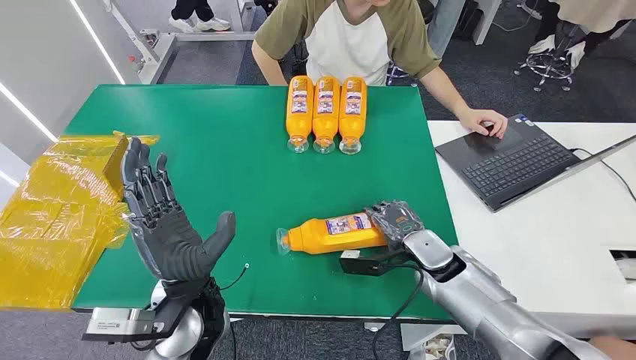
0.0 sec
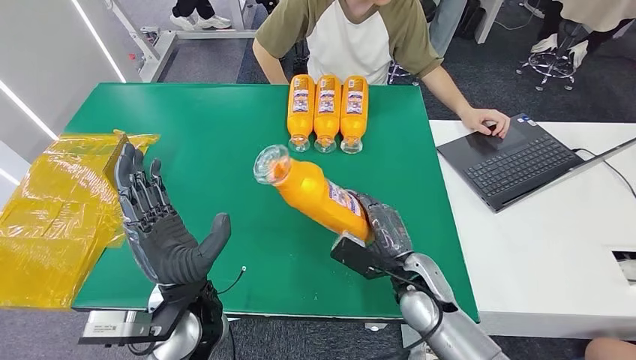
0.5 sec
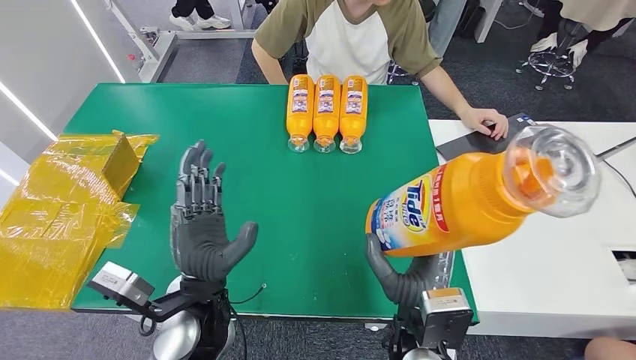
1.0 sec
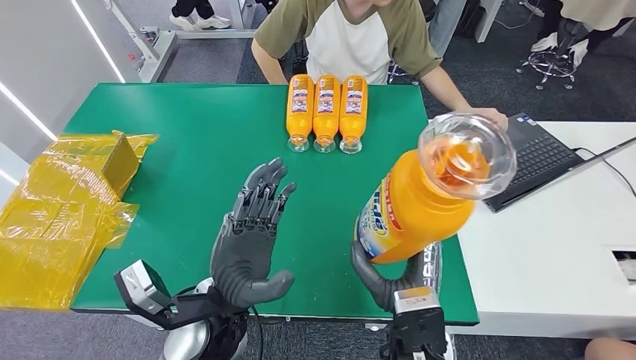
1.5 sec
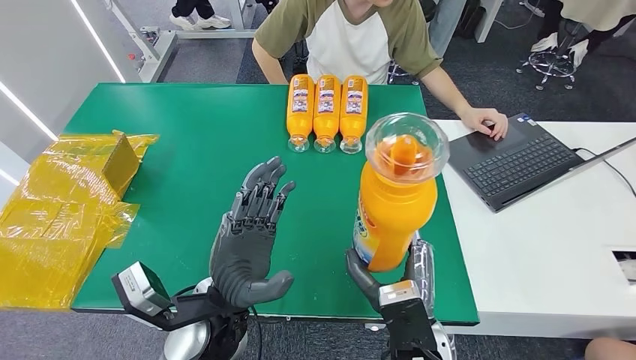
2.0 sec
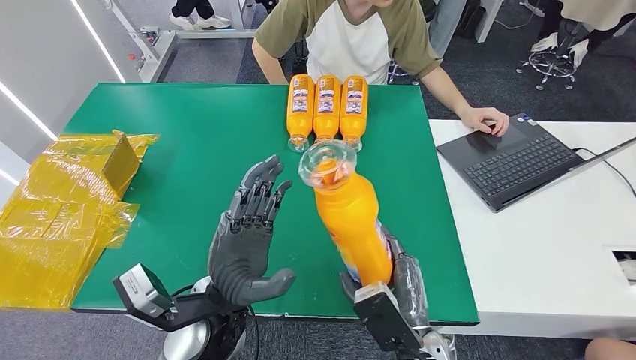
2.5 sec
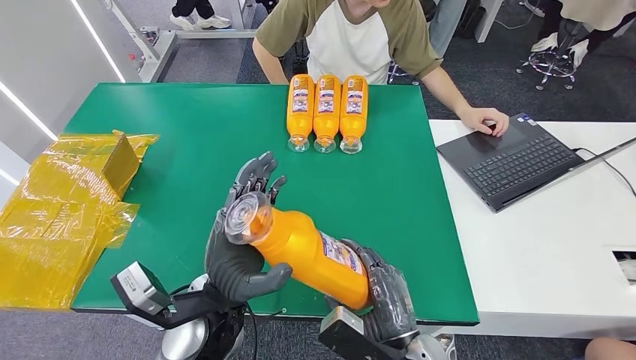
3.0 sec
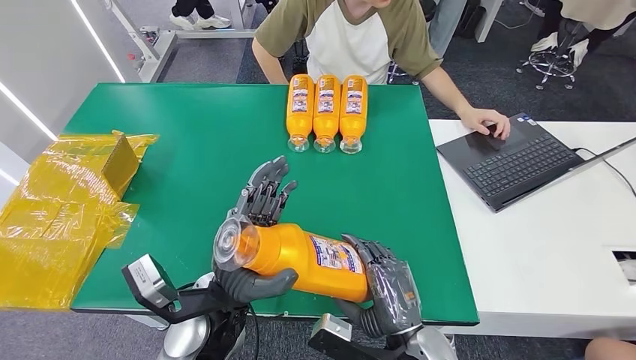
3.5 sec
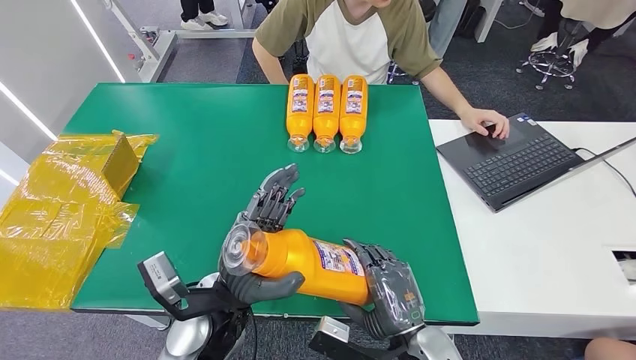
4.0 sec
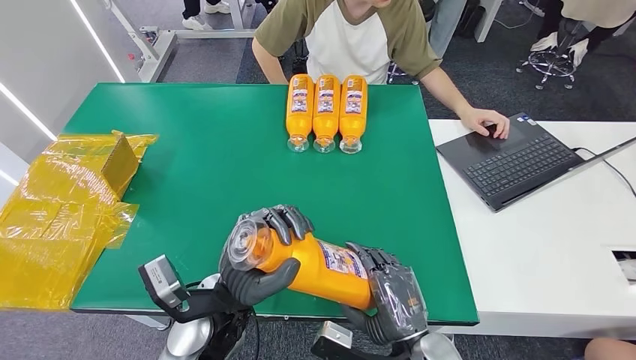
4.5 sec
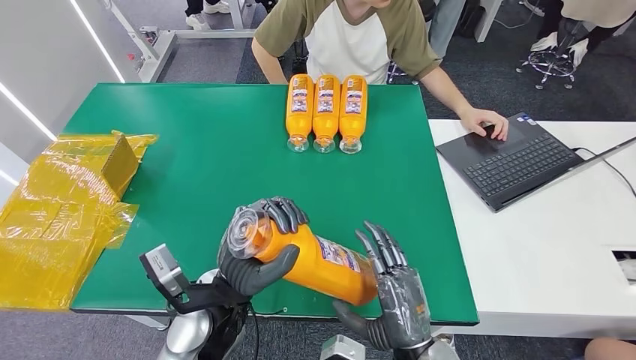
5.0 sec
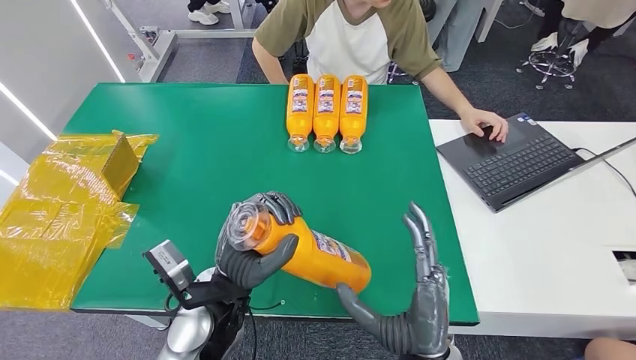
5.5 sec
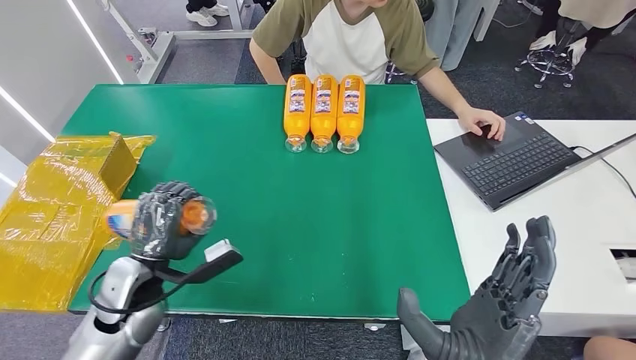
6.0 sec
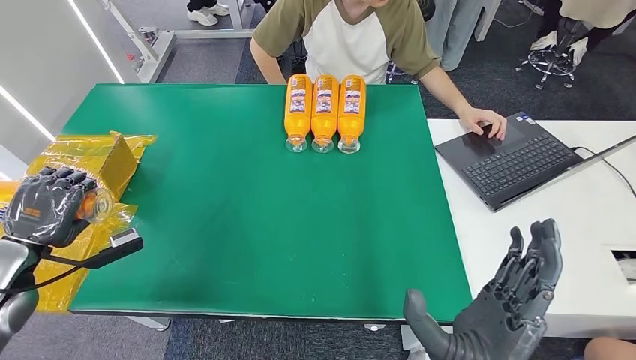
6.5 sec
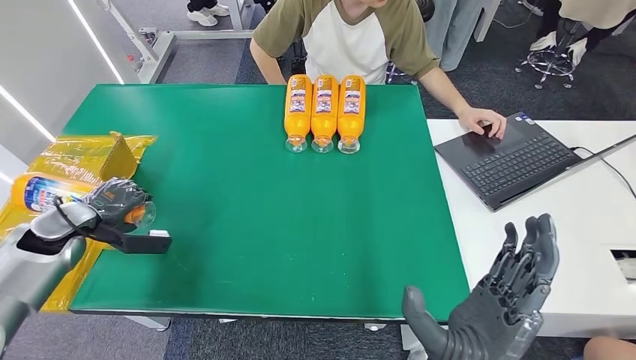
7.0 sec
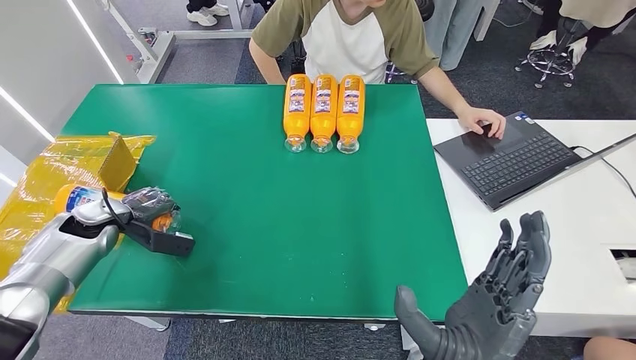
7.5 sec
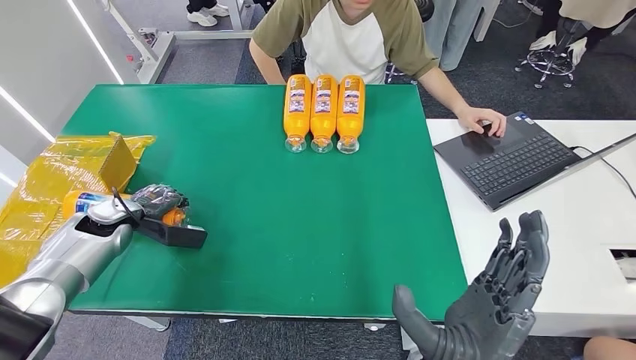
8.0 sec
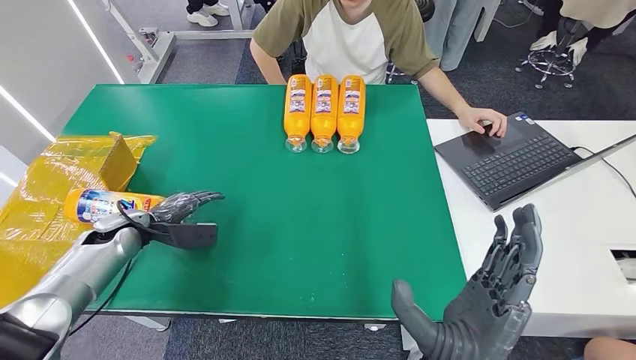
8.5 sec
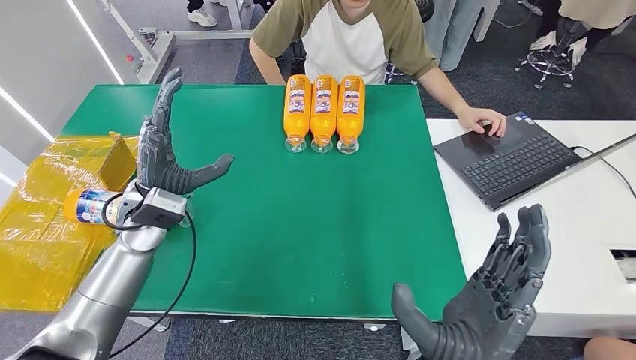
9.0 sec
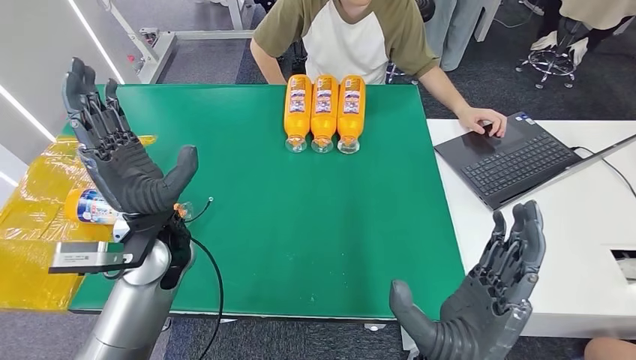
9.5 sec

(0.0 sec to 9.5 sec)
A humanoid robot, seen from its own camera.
Step, 0.0 sec - 2.5 sec: Pick up the bottle from the table.
Step, 3.0 sec - 9.5 sec: Turn the bottle to the front side.
7.5 sec - 9.5 sec: The left hand moves to the right and upward, approximately 25 cm.

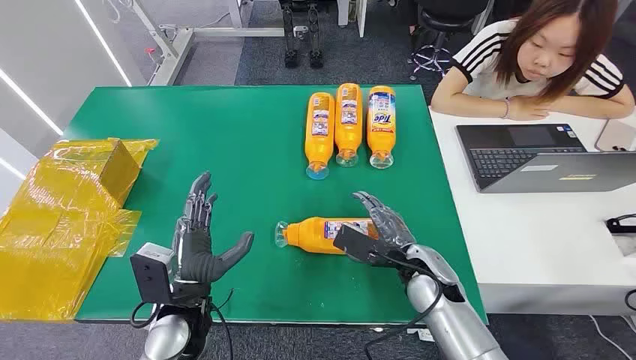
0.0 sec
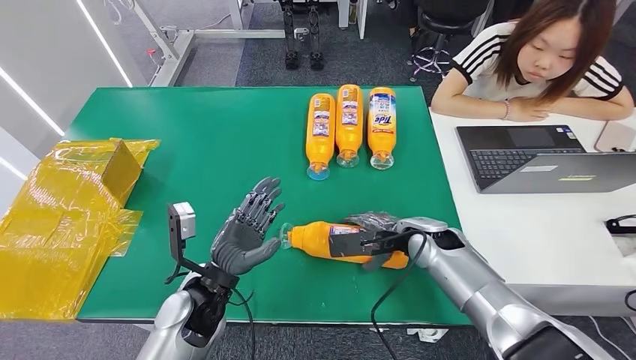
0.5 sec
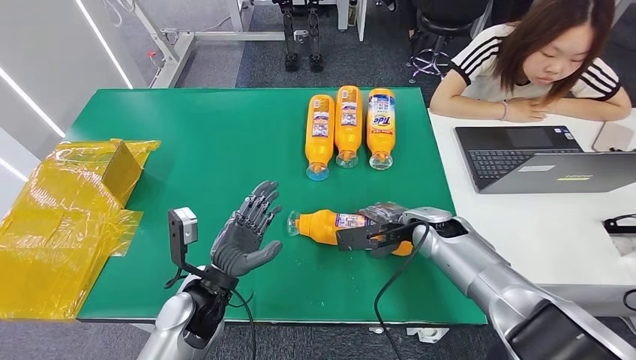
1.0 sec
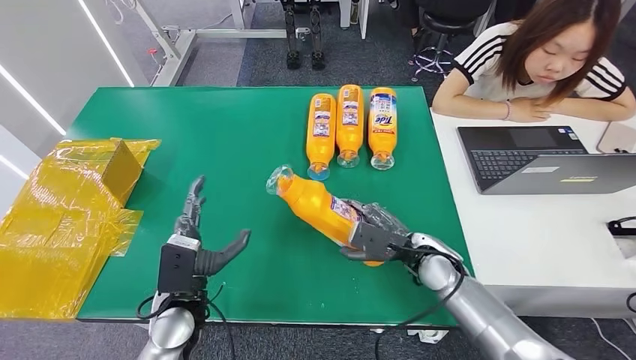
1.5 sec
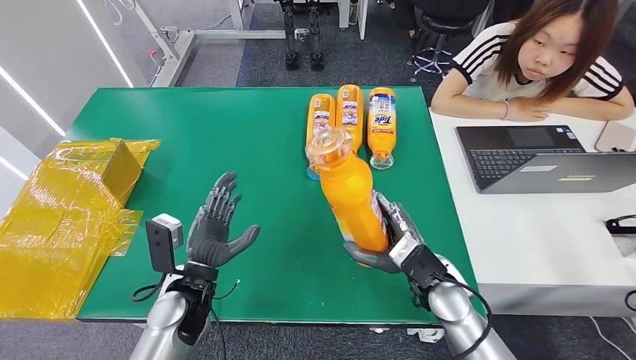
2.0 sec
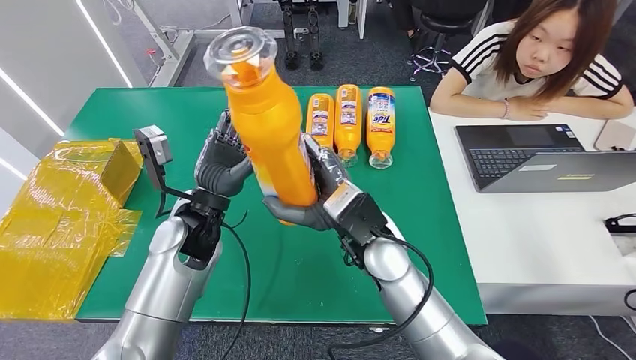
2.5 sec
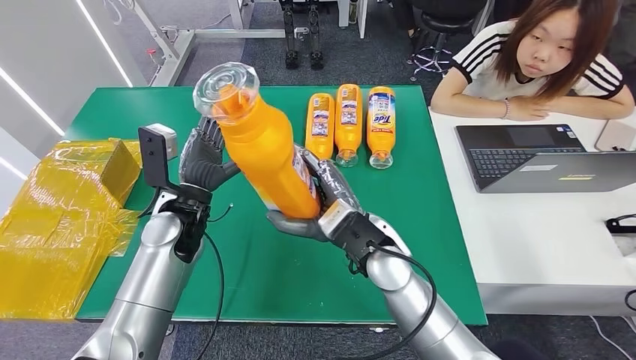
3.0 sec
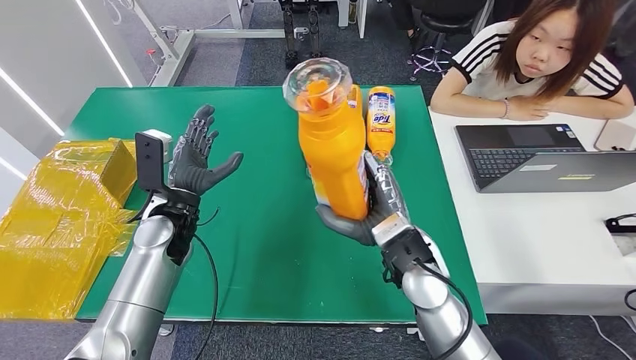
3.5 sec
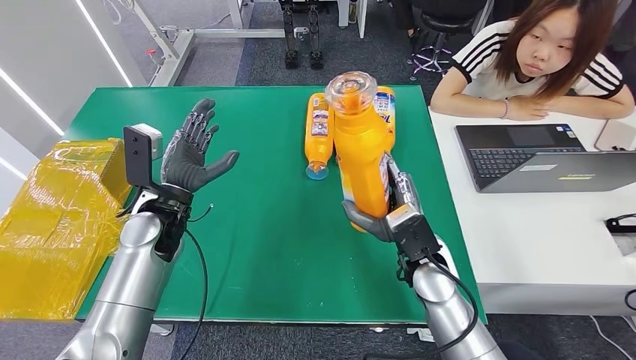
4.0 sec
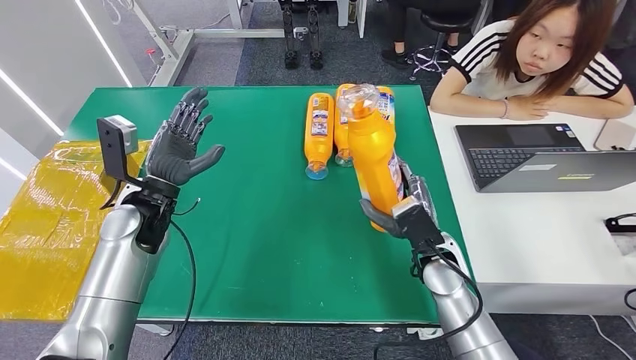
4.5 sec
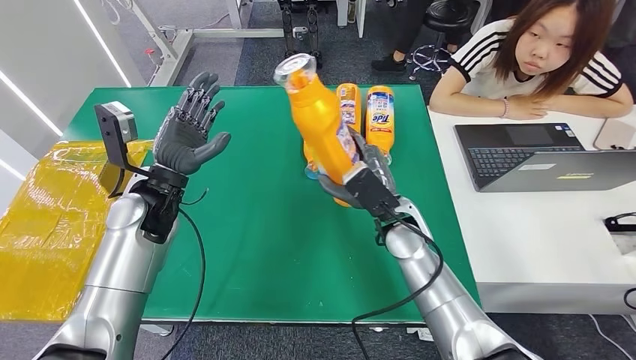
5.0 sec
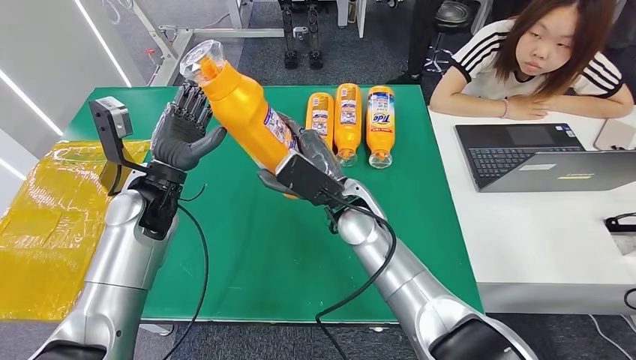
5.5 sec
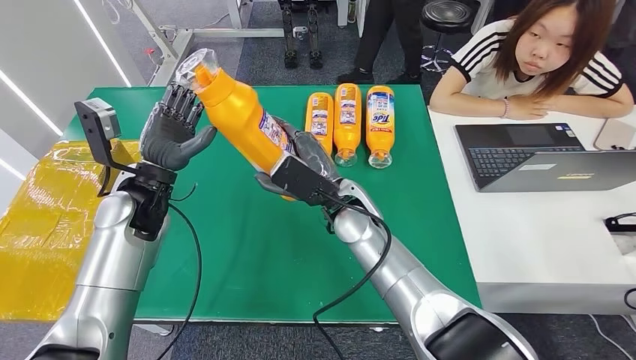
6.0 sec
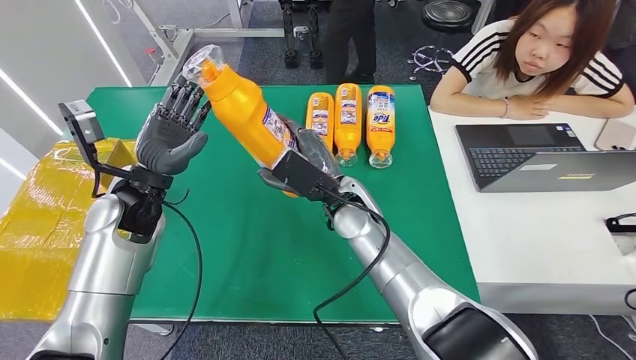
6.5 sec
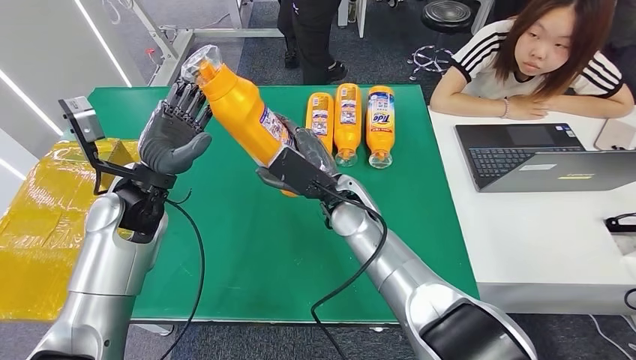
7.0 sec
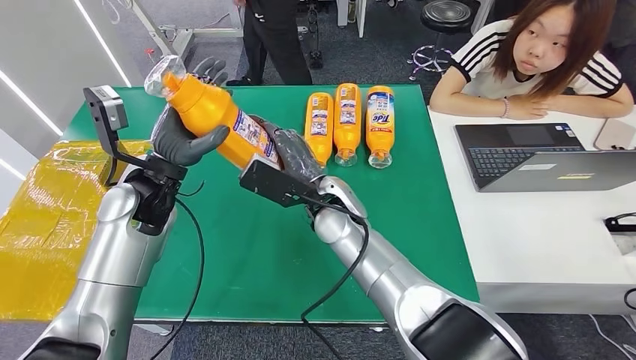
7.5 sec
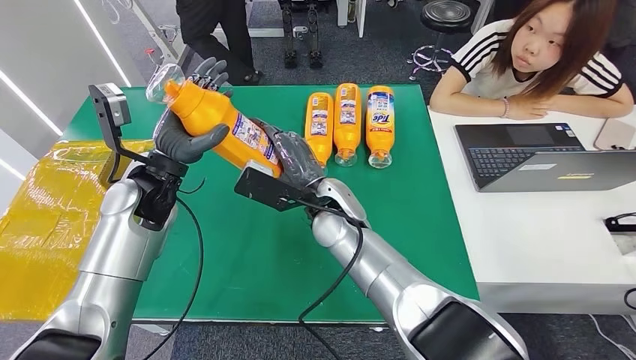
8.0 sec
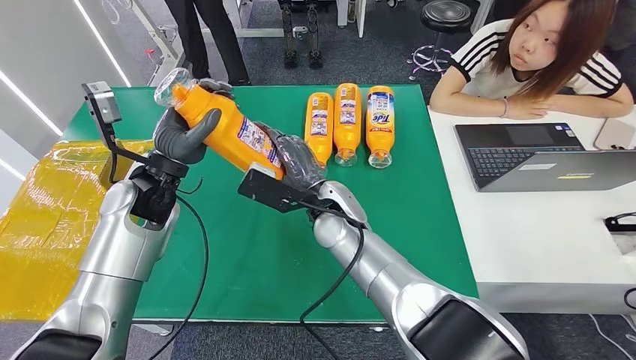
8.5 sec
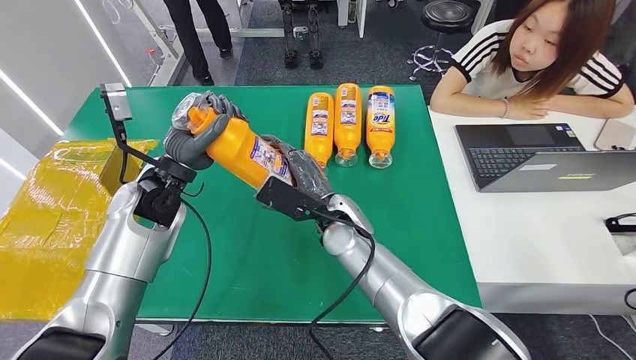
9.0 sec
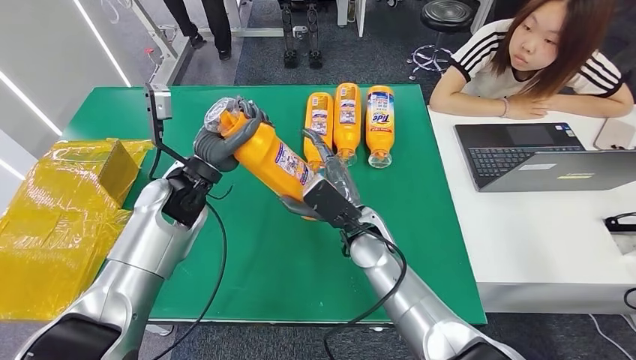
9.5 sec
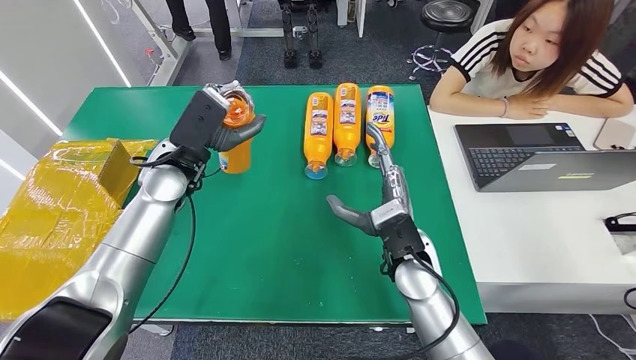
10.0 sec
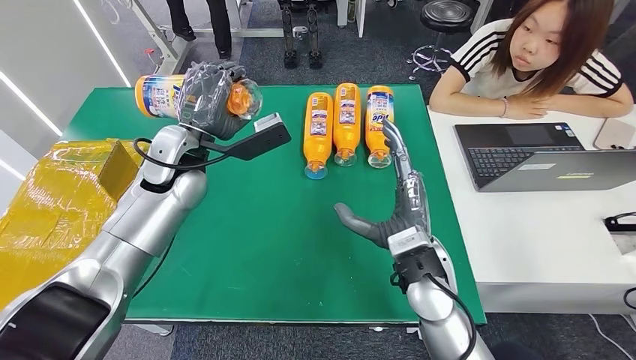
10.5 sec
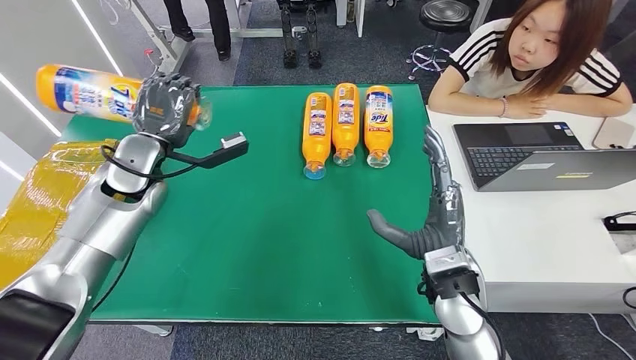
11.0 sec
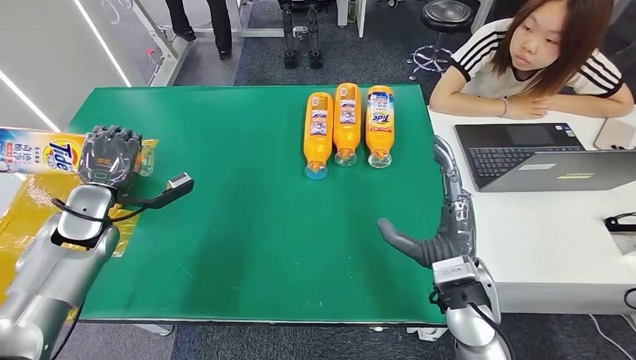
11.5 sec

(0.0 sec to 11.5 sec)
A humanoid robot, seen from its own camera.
Step, 0.0 sec - 2.0 sec: Pick up the bottle from the table.
6.0 sec - 7.5 sec: The hands make only small movements.
